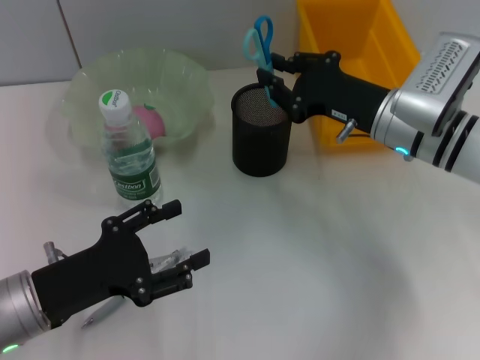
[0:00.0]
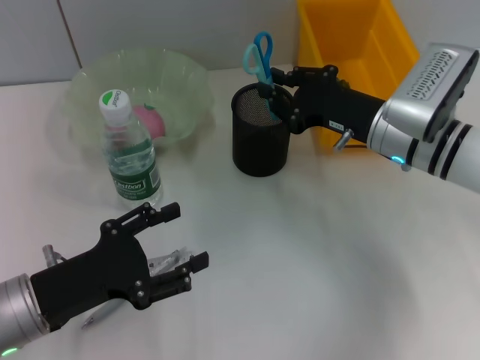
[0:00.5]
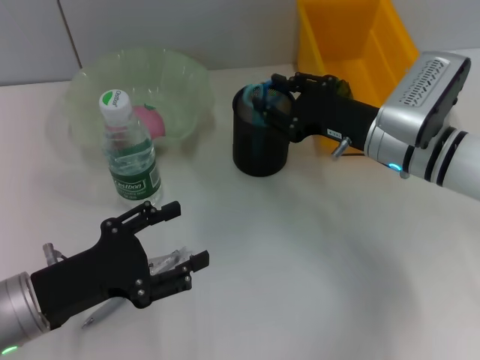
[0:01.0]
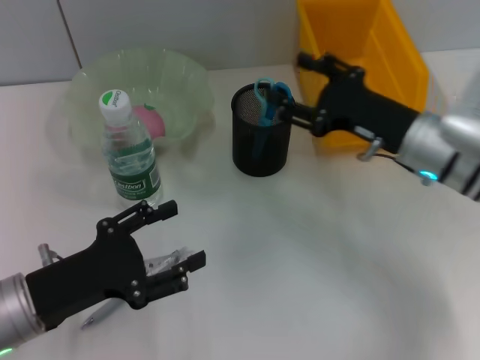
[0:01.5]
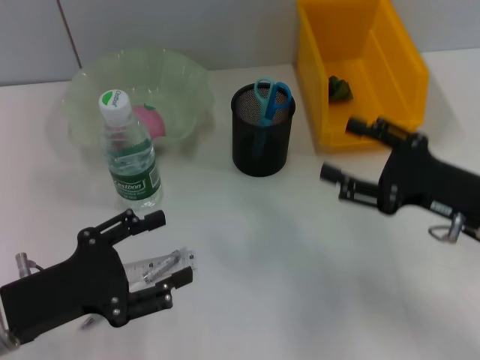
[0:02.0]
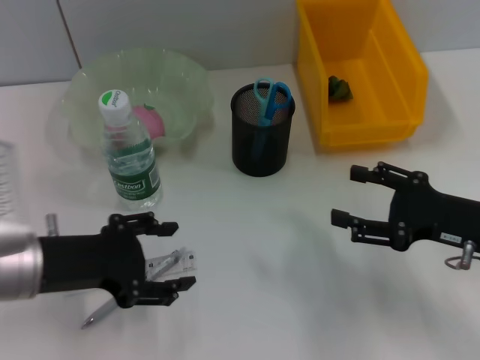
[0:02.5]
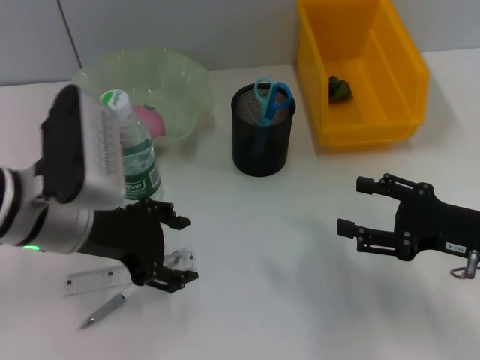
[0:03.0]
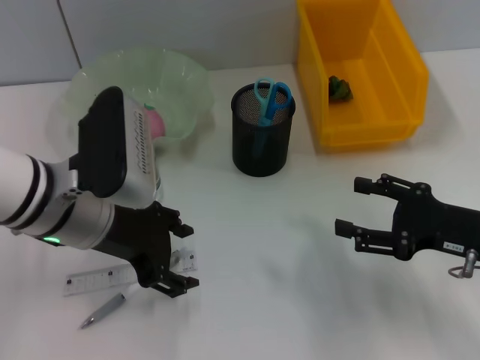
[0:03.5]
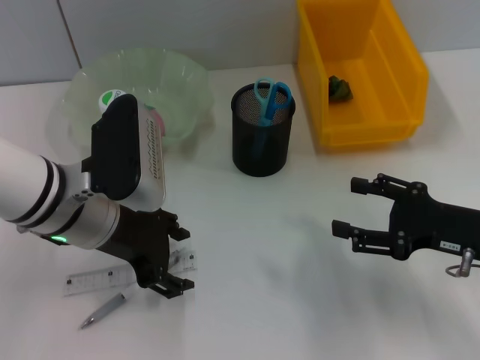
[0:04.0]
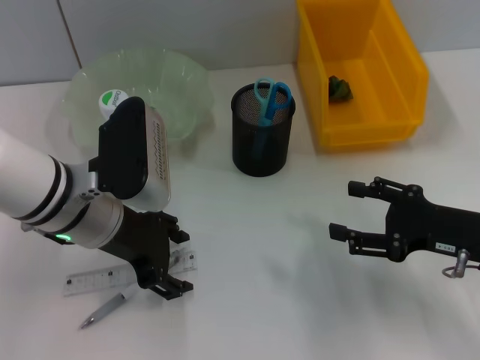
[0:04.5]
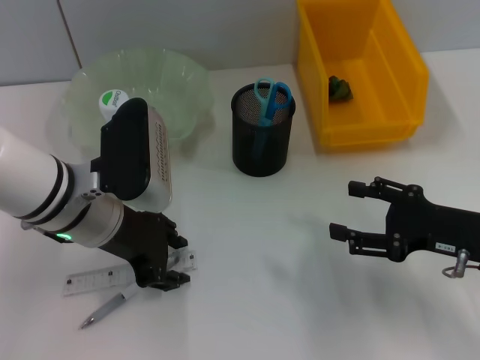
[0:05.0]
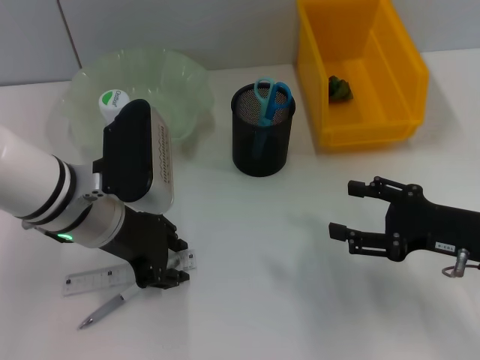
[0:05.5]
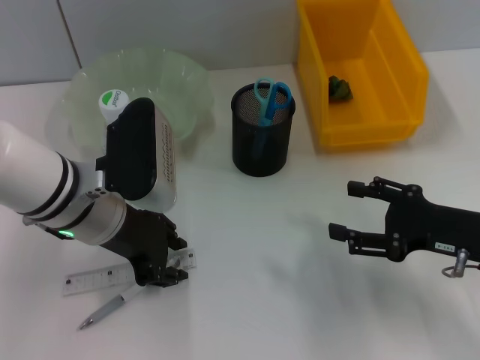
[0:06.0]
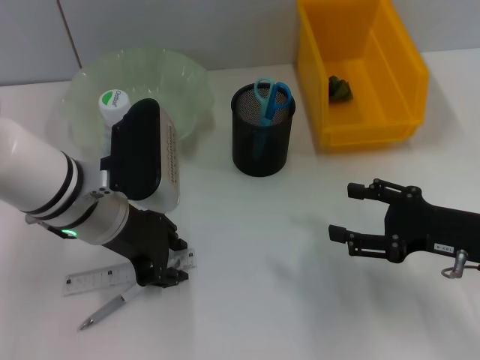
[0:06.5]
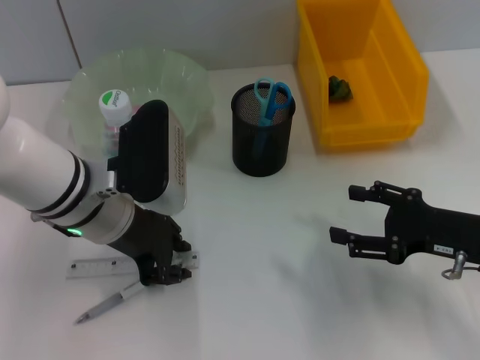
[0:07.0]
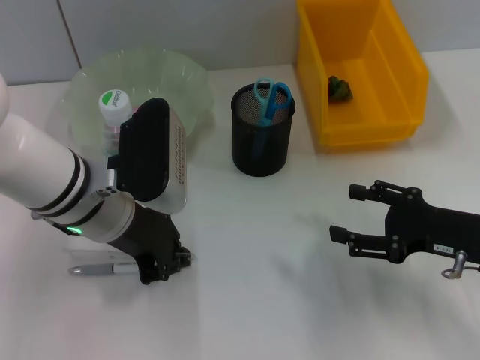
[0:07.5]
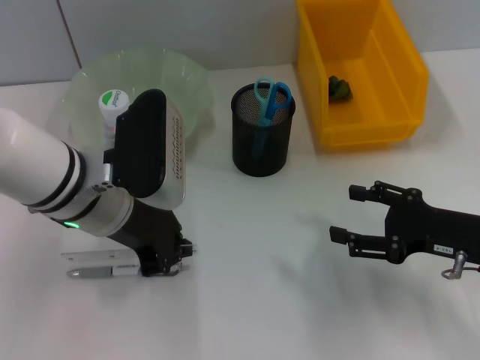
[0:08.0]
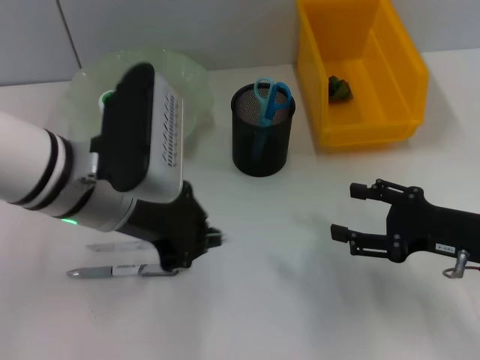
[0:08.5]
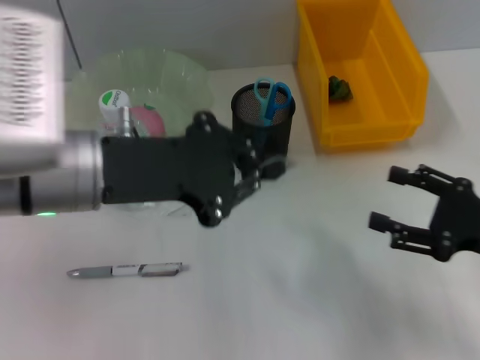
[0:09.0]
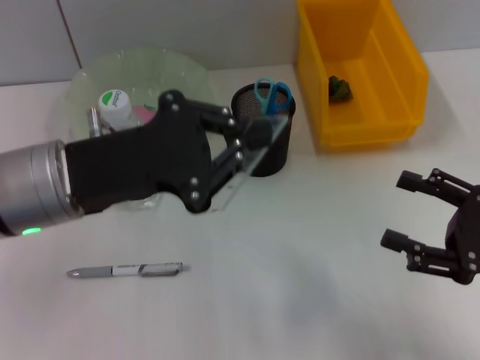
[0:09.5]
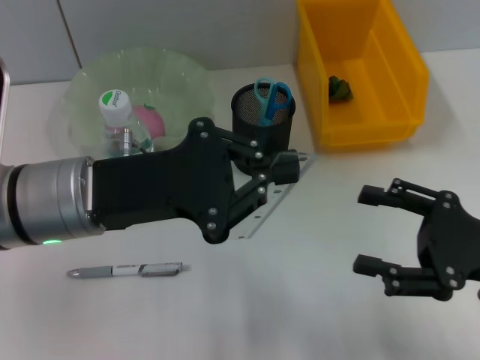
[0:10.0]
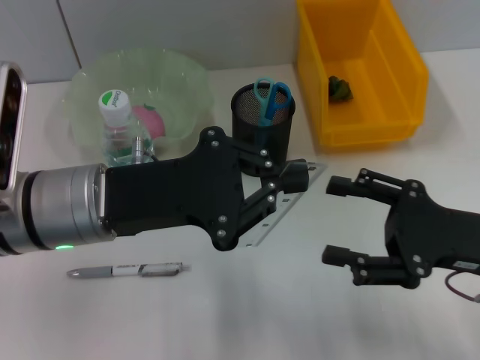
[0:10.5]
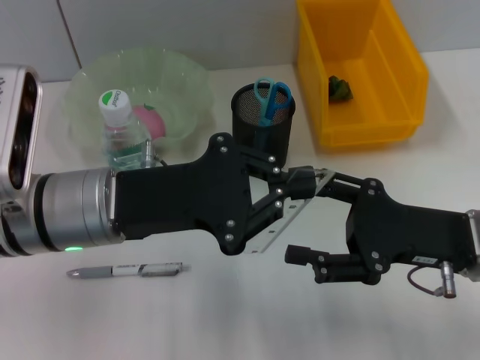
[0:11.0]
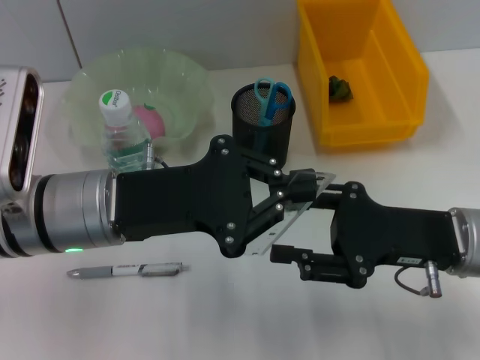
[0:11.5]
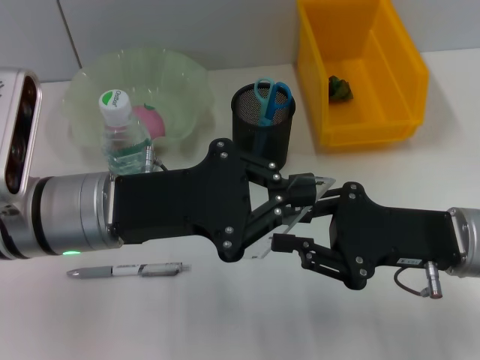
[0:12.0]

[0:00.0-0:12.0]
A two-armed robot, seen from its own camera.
Step, 0:02.0 to 0:07.0: Grab the ruler with the left hand.
0:00.0 to 0:02.0: The right gripper is displaced backward and to the right by approximately 15 cm, and opens its fingers.
0:02.0 to 0:04.0: The left gripper shifts roughly 15 cm forward, to the right and upward.
0:04.0 to 0:06.0: The left gripper closes its fingers.
0:06.0 to 0:08.0: The left gripper closes.
0:08.0 to 0:10.0: The right gripper shifts by approximately 5 cm; the left gripper changes place by approximately 5 cm.
0:10.0 to 0:12.0: The right gripper goes approximately 5 cm to the left, and closes its fingers.

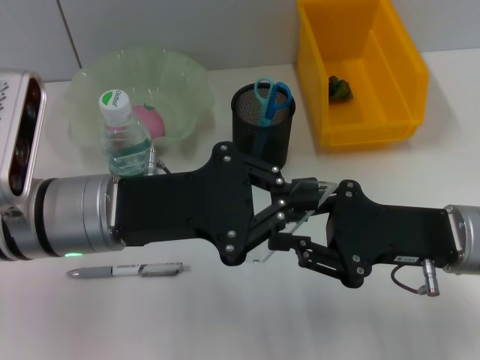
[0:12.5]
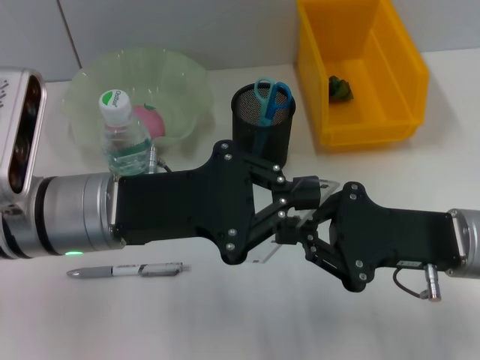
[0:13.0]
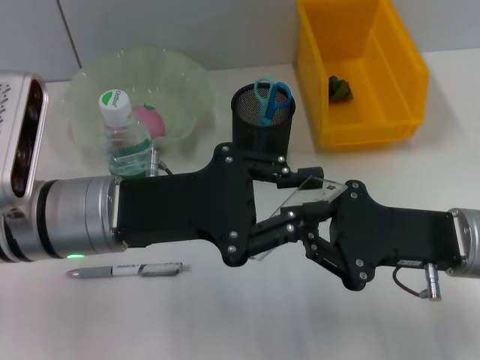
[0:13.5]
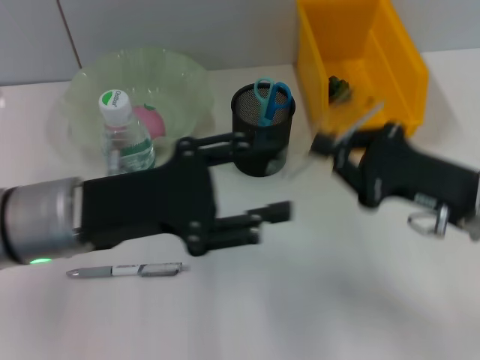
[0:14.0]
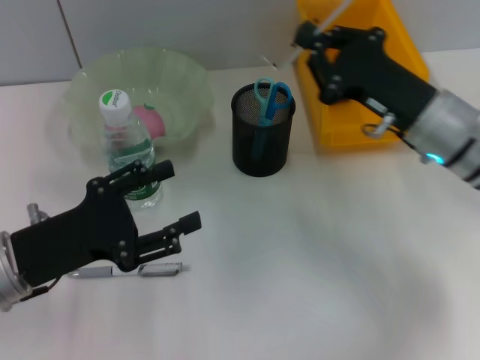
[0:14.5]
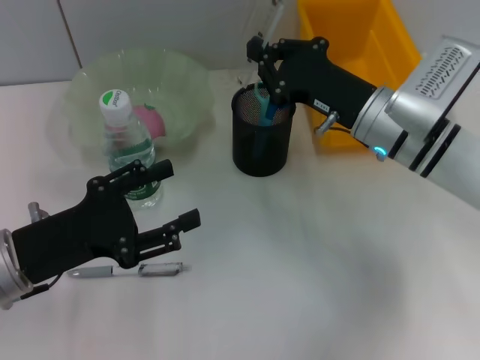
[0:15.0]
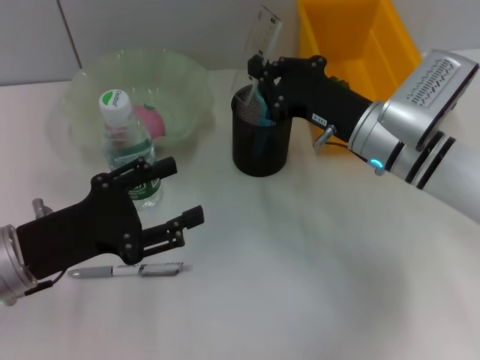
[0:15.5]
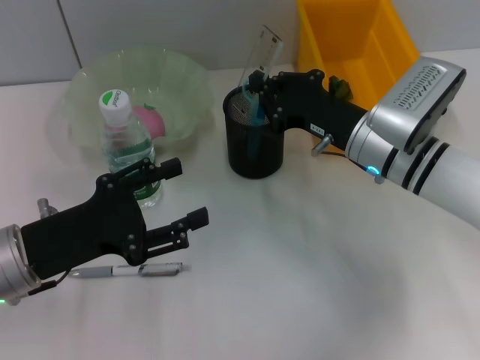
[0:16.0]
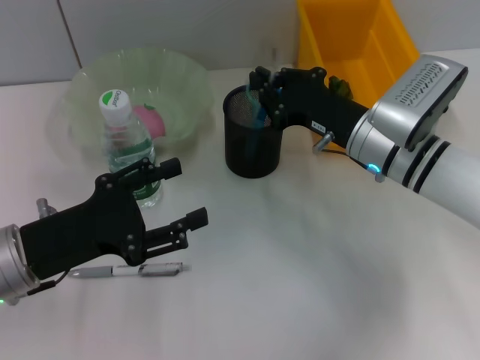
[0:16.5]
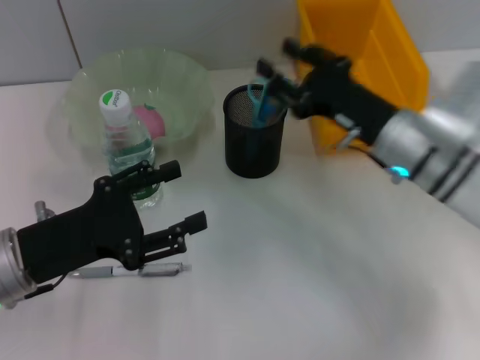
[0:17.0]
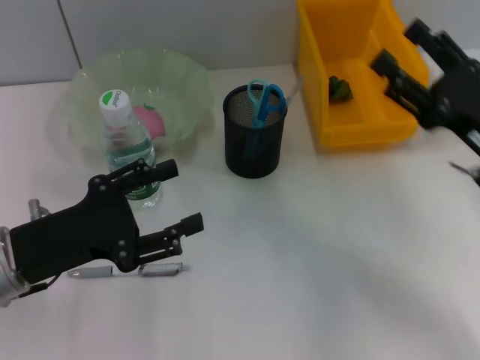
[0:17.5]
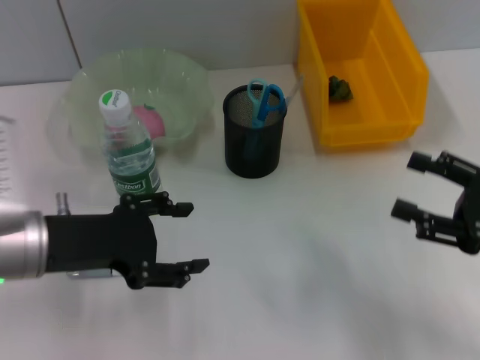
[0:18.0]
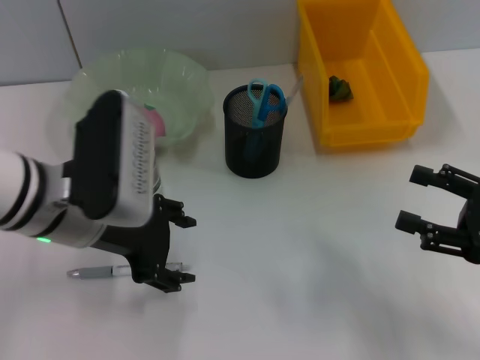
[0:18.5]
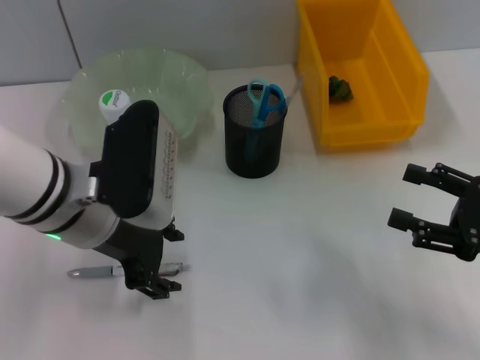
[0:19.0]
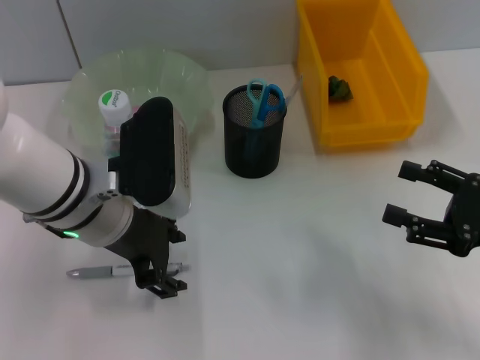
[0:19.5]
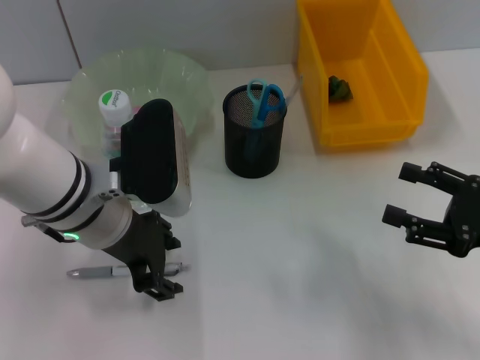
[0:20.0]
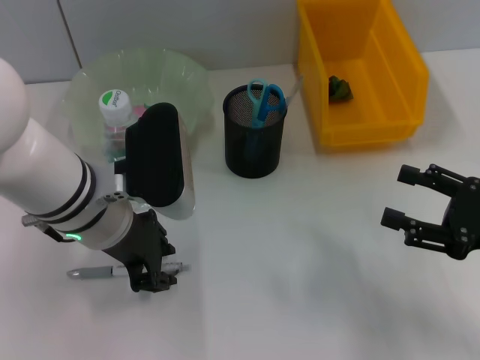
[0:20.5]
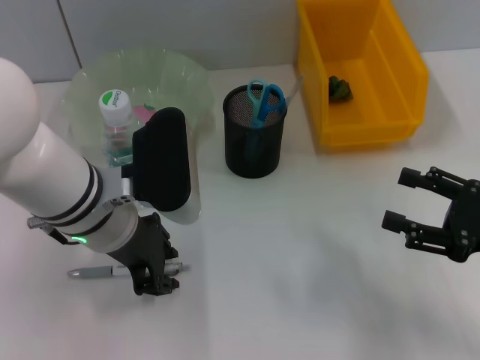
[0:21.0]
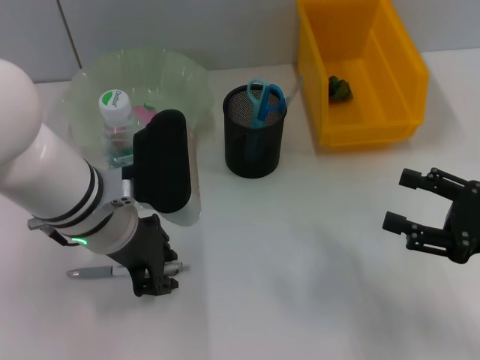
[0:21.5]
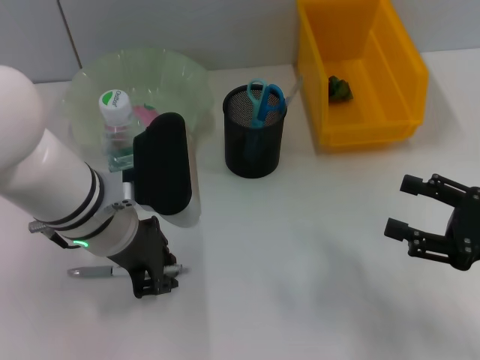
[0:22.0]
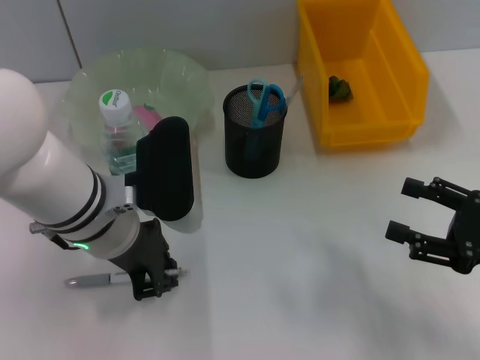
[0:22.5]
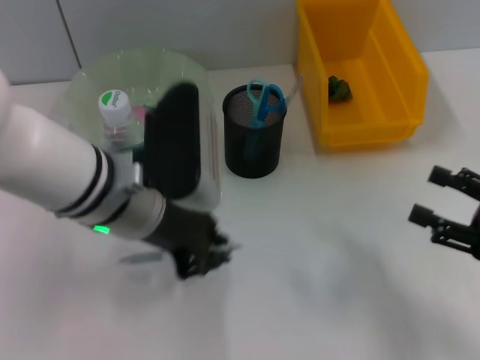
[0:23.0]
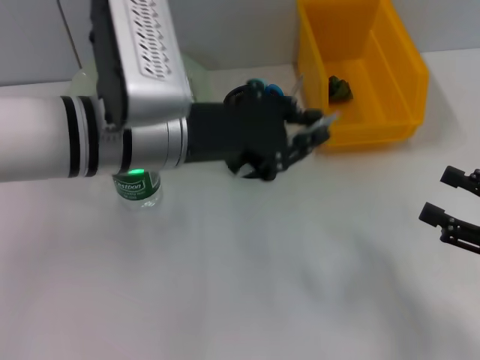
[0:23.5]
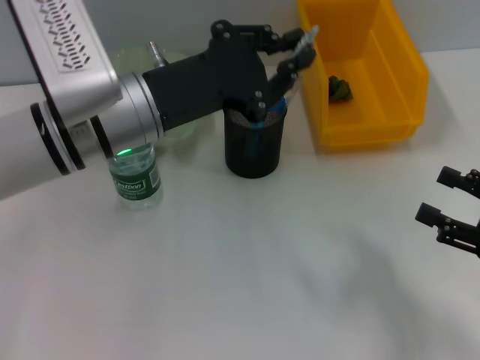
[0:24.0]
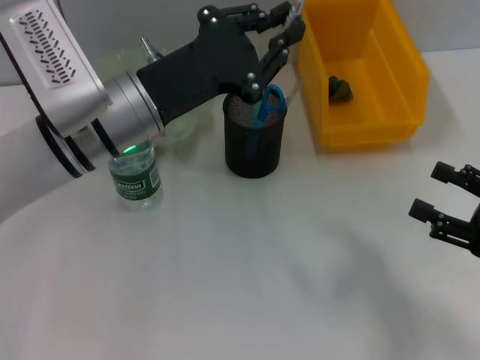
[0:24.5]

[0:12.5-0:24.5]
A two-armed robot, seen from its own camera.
Step, 0:14.0 to 0:17.0: Place the ruler into the pen holder with the right hand.
Step, 0:17.5 to 0:22.5: Grab the gray spring-action pen with the left hand.
0:12.5 to 0:14.5: The right gripper goes about 10 cm forward; the left gripper moves to the left and downward, roughly 10 cm, and opens.
0:14.5 to 0:16.5: The right gripper shifts by some 5 cm.
0:16.5 to 0:18.5: The left gripper heads to the right and upward, covering some 10 cm. The right gripper goes roughly 20 cm to the right and backward, and opens up.
0:18.5 to 0:20.5: The left gripper closes.
0:20.5 to 0:22.5: Both grippers stay about where they are.

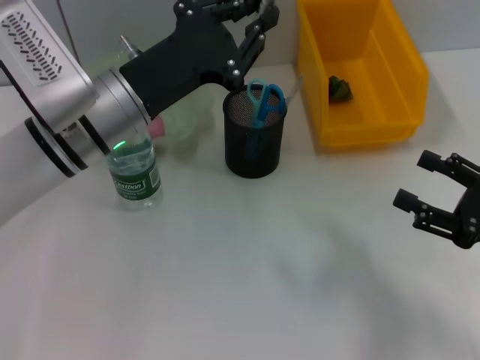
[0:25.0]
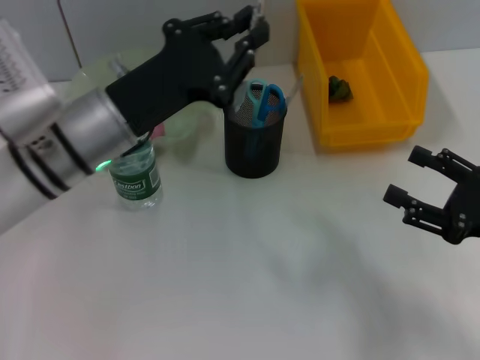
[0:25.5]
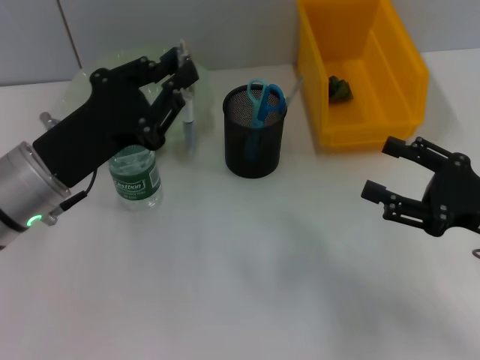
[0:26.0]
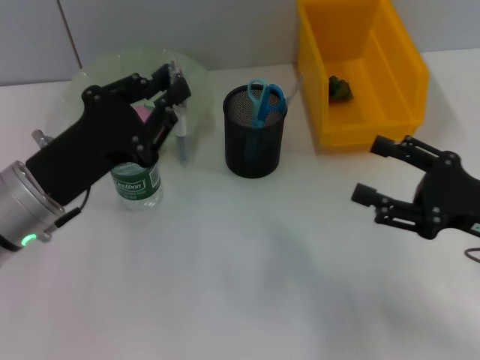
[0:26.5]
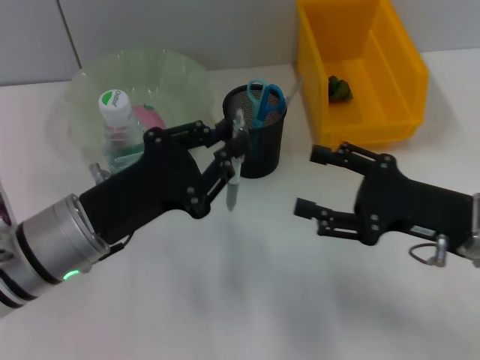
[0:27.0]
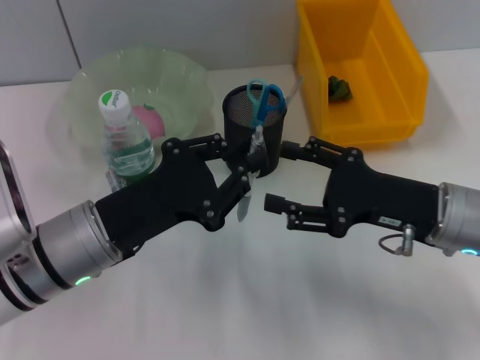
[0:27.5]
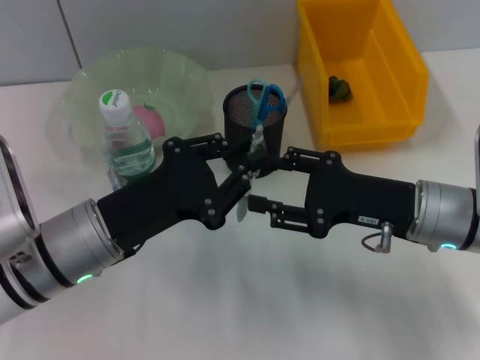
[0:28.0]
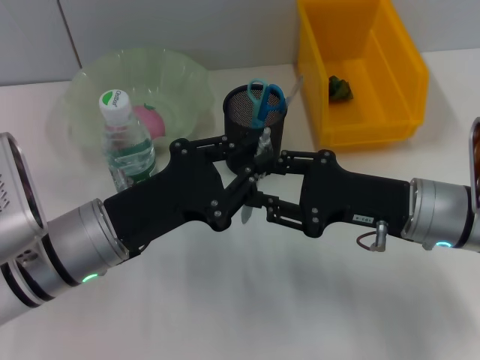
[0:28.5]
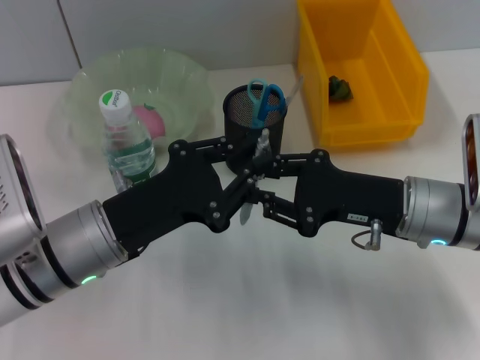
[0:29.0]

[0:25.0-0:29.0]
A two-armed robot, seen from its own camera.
0:25.0 to 0:27.0: The right gripper is displaced to the left by roughly 10 cm, while the left gripper travels backward and downward by about 10 cm.
0:27.0 to 0:29.0: The right gripper changes place by some 5 cm, and closes its fingers.
